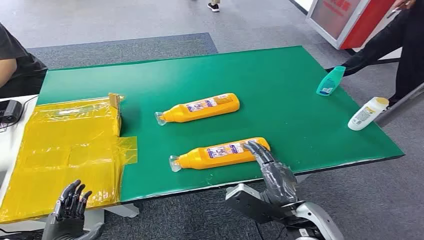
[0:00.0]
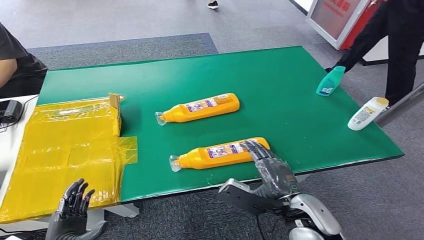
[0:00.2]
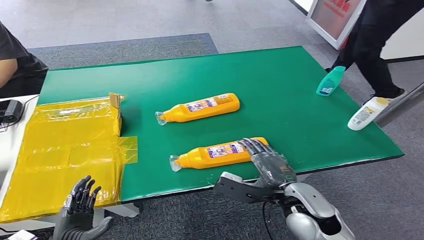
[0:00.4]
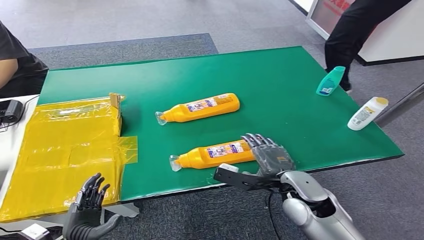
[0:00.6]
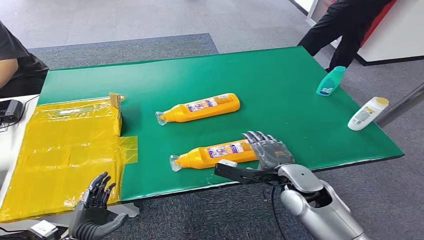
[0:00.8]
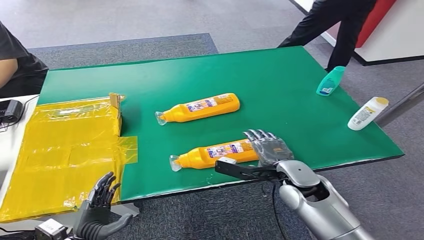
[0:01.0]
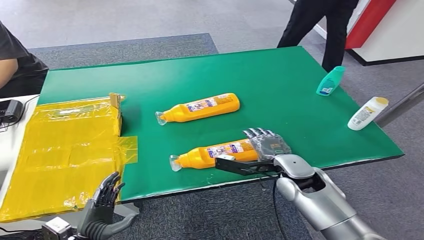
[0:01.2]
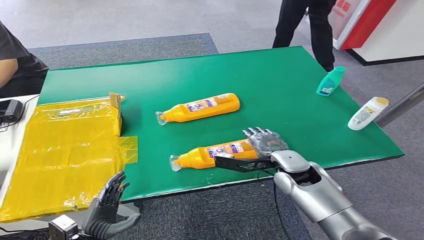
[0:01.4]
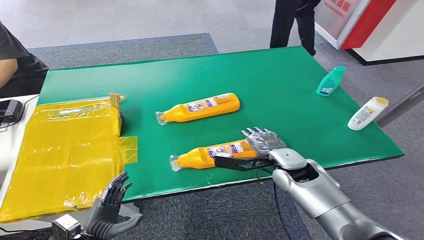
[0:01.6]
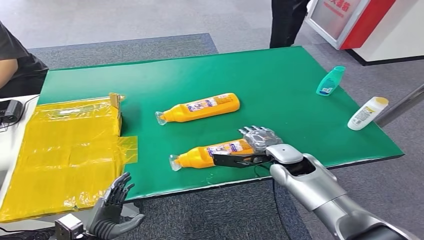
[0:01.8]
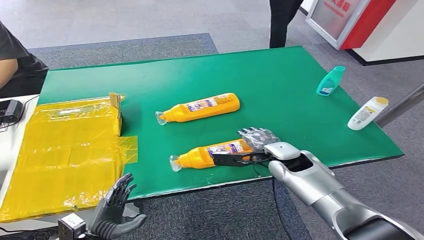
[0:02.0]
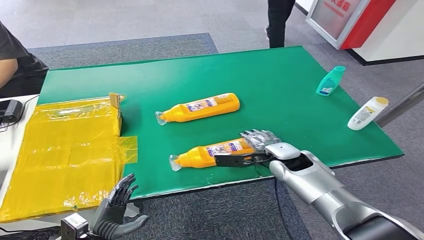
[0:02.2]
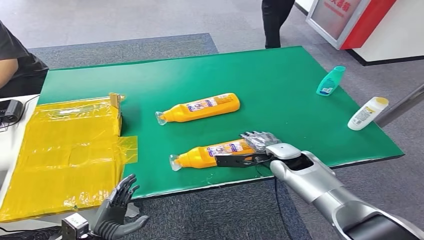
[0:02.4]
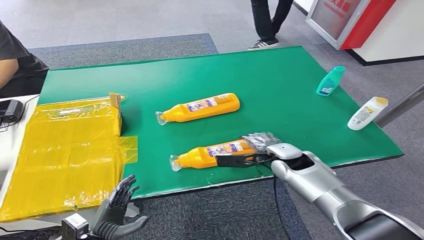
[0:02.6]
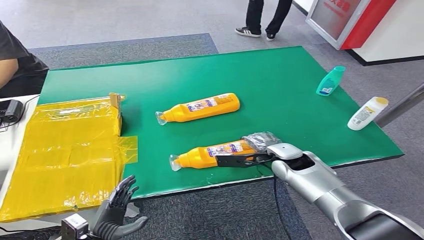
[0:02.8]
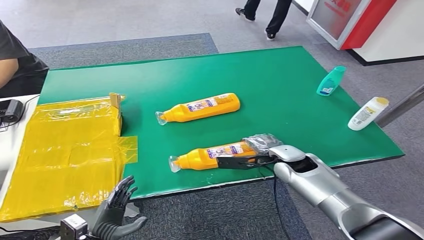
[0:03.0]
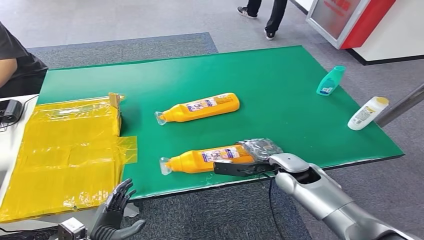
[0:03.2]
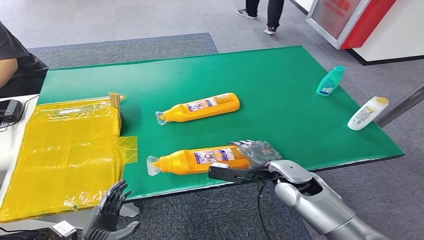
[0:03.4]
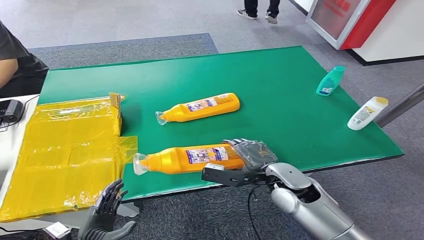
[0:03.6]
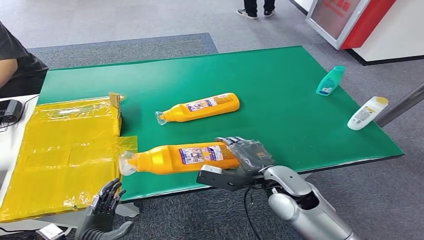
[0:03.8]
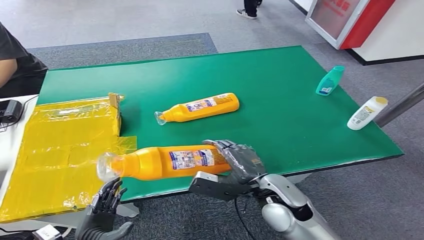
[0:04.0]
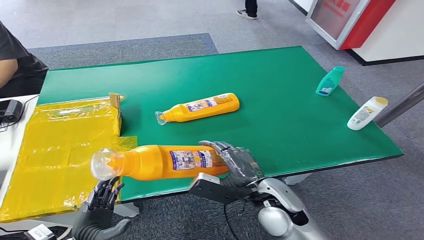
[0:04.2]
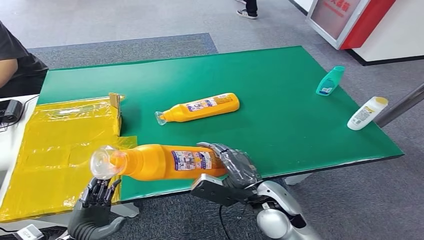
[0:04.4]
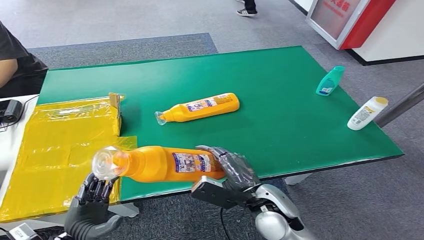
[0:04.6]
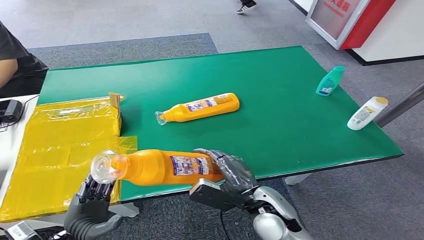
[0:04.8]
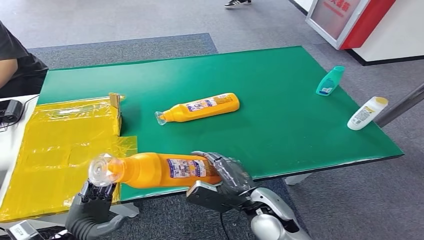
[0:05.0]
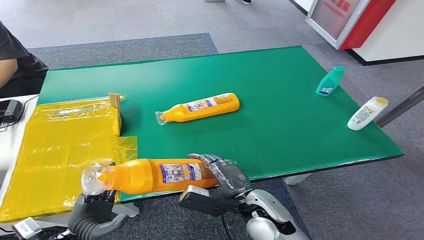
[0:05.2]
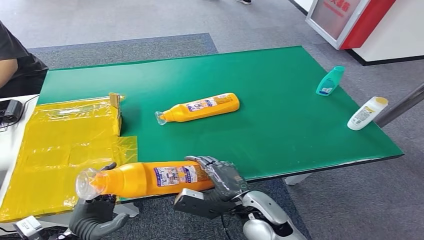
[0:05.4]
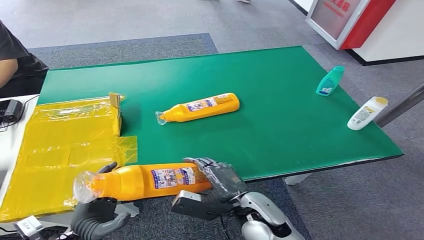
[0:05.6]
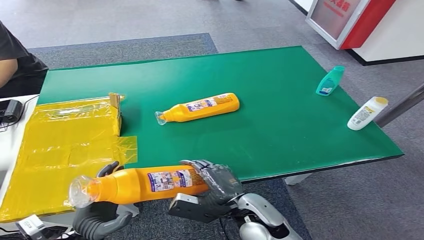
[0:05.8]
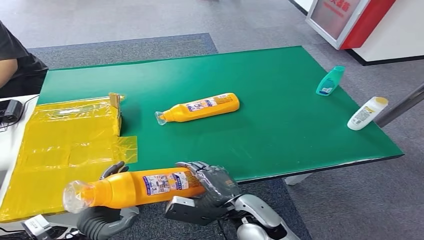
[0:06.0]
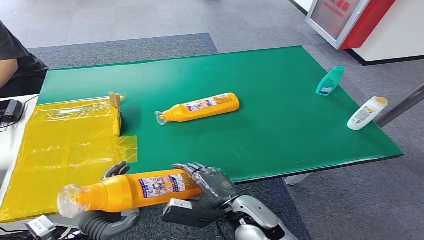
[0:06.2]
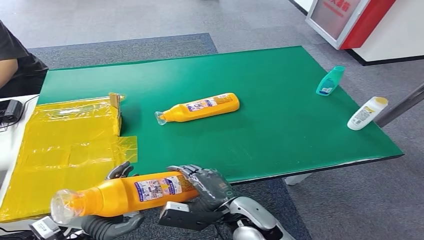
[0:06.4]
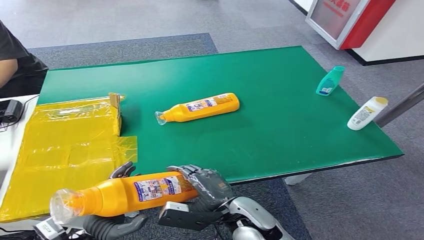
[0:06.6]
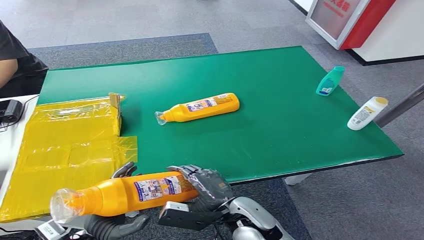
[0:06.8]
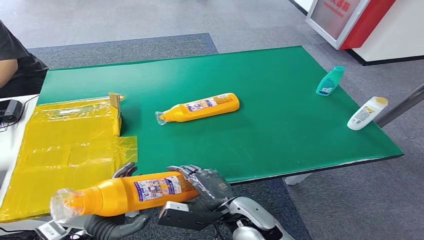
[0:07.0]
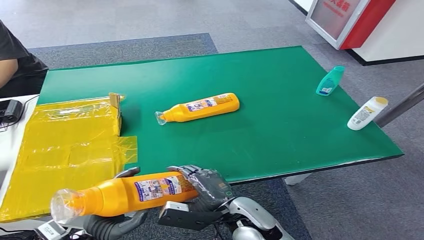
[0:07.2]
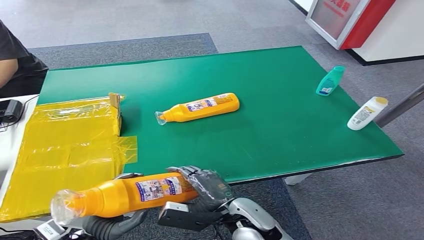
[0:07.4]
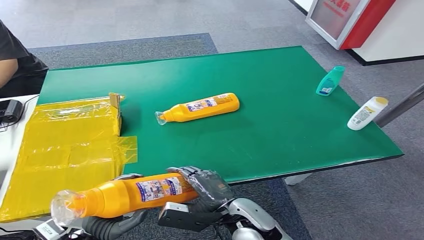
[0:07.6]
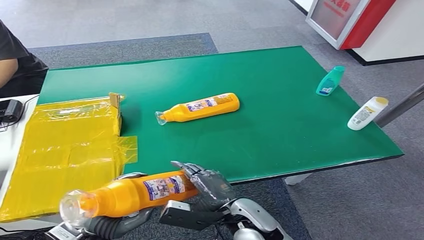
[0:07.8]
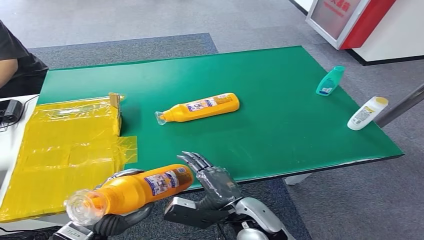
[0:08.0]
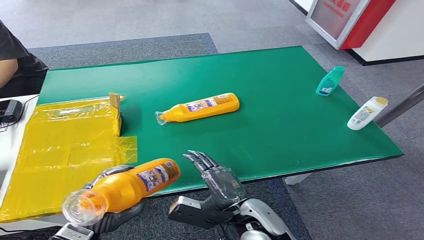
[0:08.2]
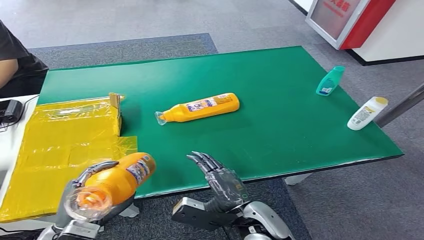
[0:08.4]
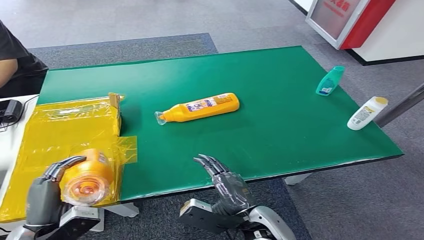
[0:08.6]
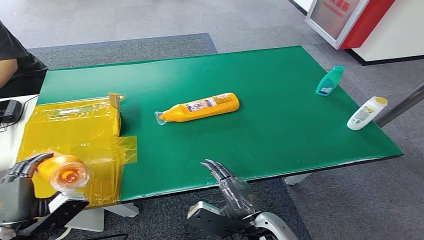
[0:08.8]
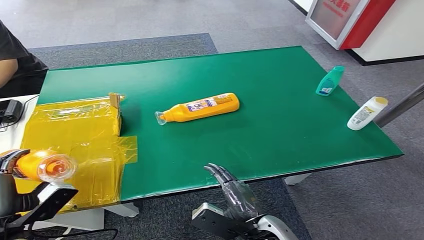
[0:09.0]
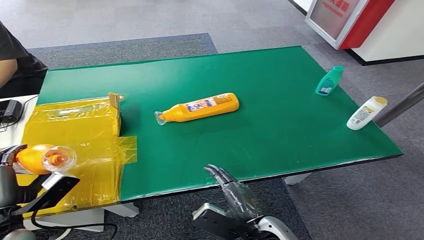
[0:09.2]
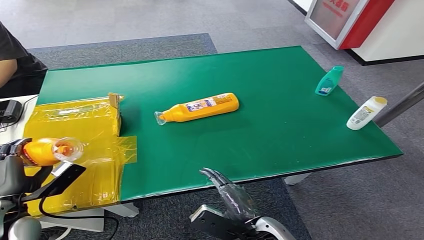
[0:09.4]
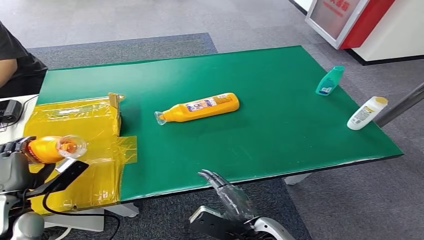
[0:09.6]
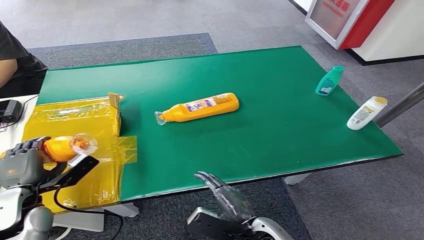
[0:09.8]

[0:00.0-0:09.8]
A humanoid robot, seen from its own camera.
Step, 0:00.0 to 0:04.0: Pick up the bottle from the table.
0:01.4 to 0:02.8: The hands move only a little.
0:02.8 to 0:04.2: The right hand travels backward and to the left by about 15 cm.
0:04.2 to 0:05.6: The right hand shifts by about 5 cm. The left hand goes about 5 cm upward.
0:05.6 to 0:07.0: The hands stay close to where they were, moving slightly.
0:07.0 to 0:08.4: The left hand shifts by approximately 5 cm.
0:08.4 to 0:09.8: The left hand moves to the left and forward, some 15 cm.

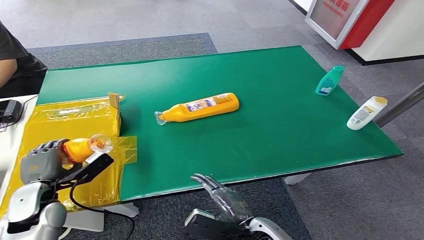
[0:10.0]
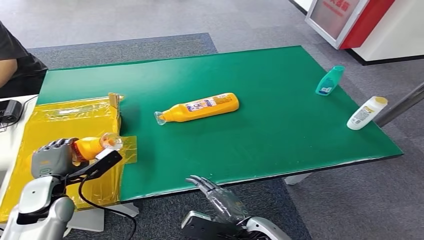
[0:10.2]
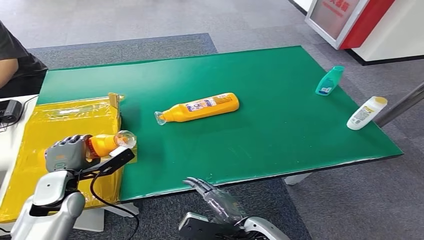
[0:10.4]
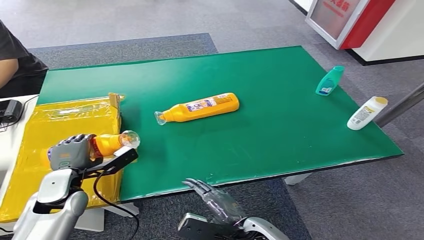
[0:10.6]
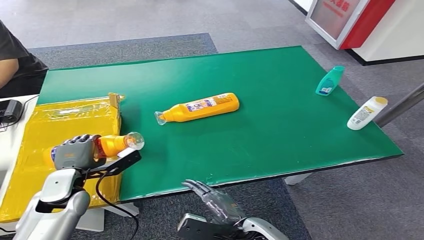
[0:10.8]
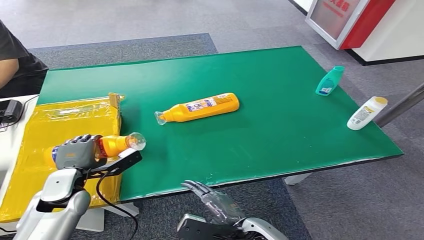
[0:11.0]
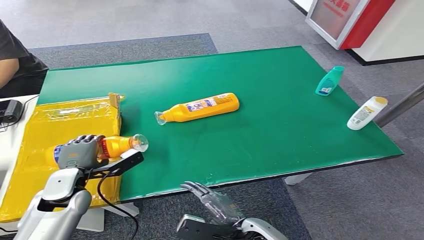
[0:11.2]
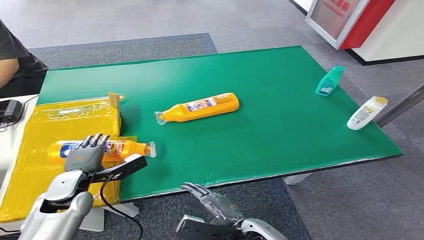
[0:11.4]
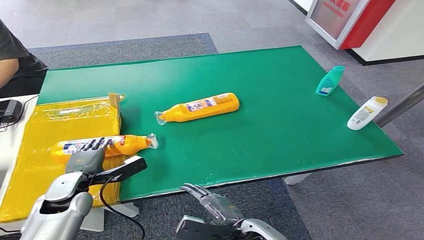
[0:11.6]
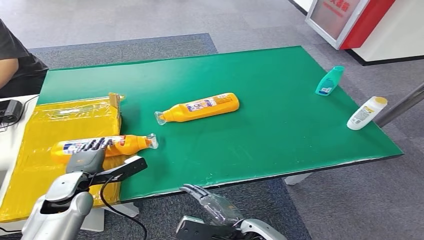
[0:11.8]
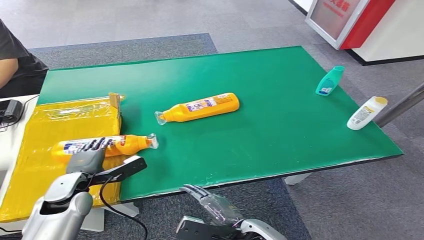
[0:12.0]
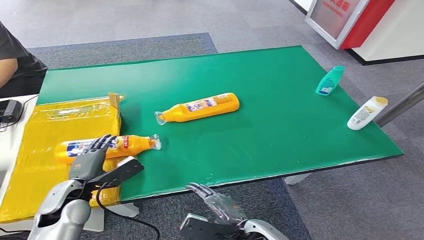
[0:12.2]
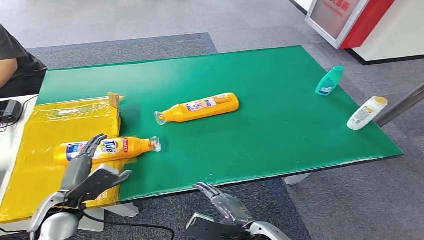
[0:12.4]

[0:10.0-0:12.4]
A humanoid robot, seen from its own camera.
Step, 0:10.0 to 0:12.4: Turn the bottle to the front side.
0:10.0 to 0:11.2: The left hand ends up about 5 cm from where it was.
0:11.2 to 0:12.4: The left hand moves backward, roughly 5 cm.
